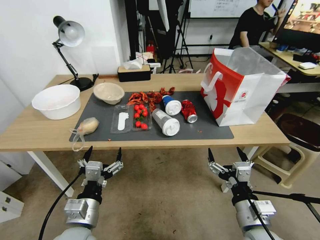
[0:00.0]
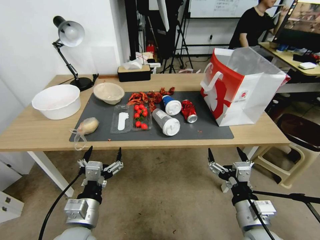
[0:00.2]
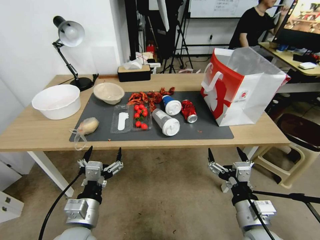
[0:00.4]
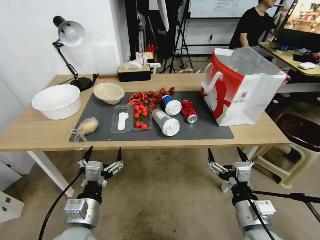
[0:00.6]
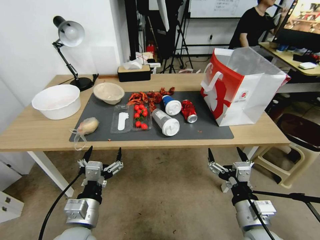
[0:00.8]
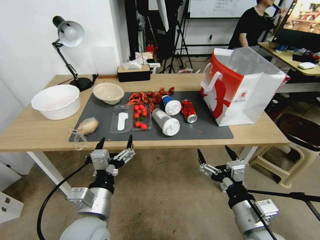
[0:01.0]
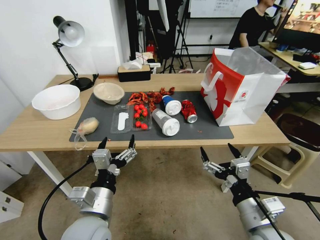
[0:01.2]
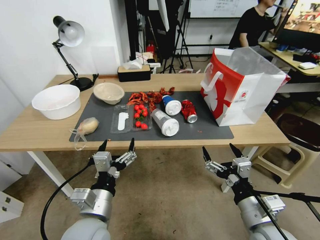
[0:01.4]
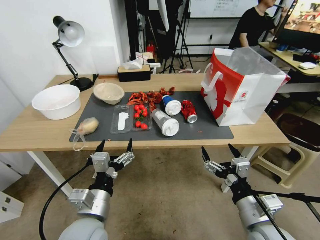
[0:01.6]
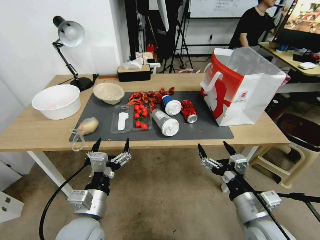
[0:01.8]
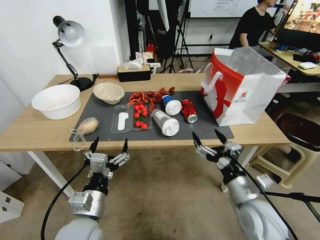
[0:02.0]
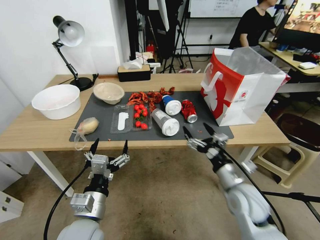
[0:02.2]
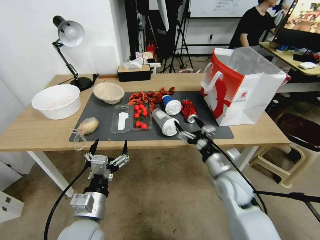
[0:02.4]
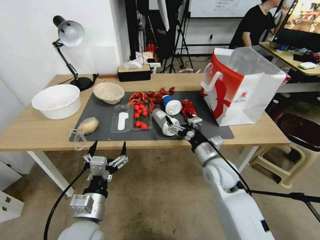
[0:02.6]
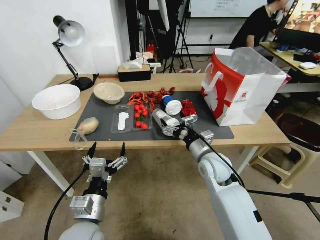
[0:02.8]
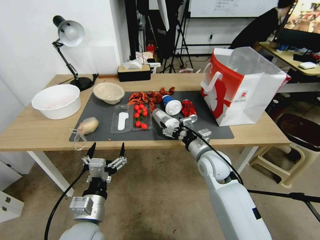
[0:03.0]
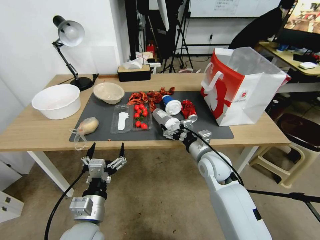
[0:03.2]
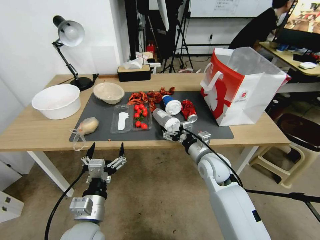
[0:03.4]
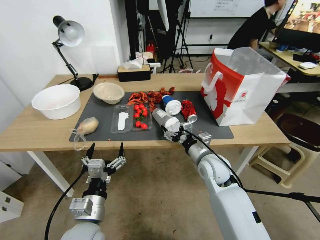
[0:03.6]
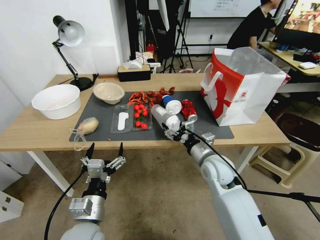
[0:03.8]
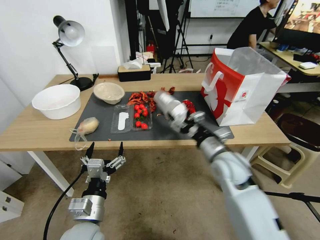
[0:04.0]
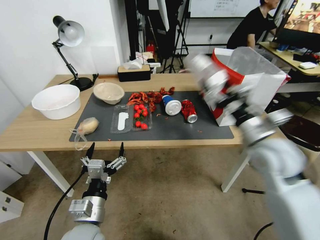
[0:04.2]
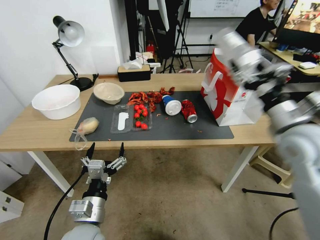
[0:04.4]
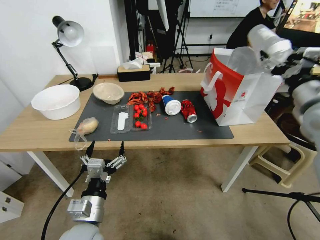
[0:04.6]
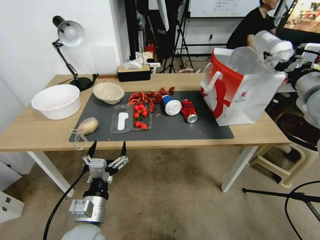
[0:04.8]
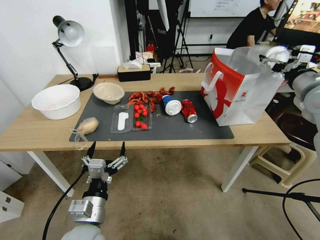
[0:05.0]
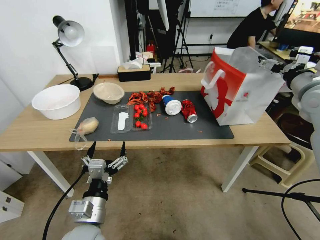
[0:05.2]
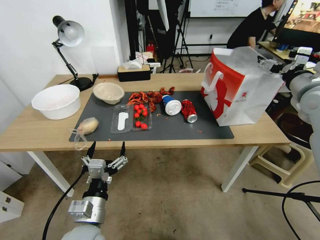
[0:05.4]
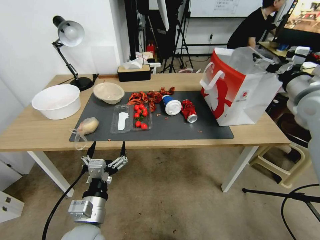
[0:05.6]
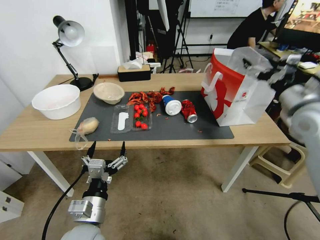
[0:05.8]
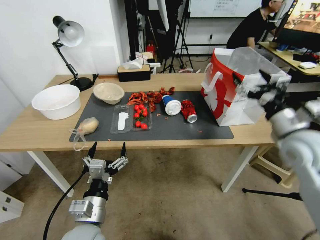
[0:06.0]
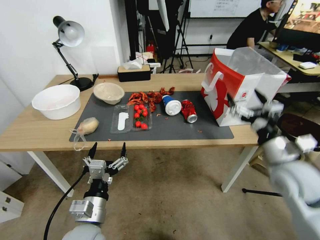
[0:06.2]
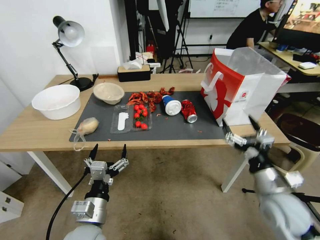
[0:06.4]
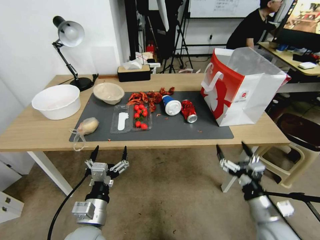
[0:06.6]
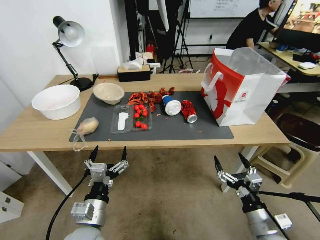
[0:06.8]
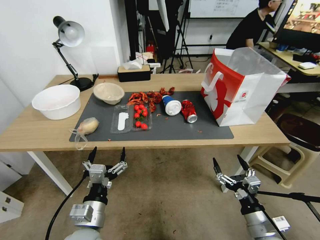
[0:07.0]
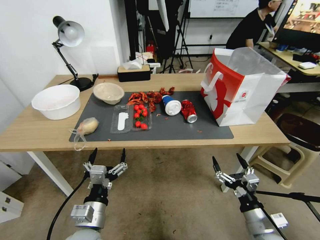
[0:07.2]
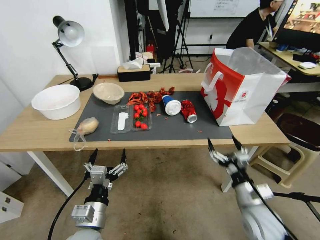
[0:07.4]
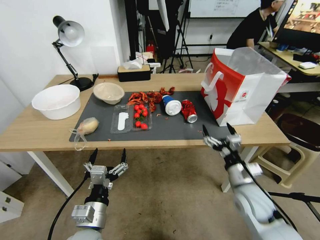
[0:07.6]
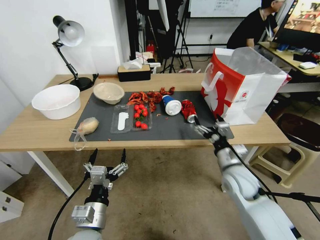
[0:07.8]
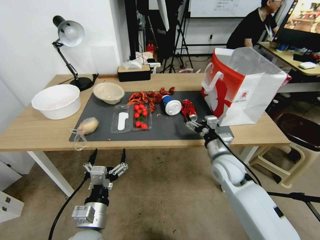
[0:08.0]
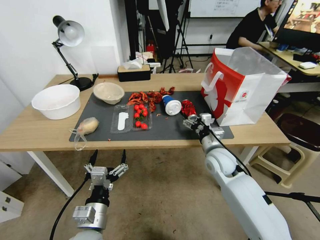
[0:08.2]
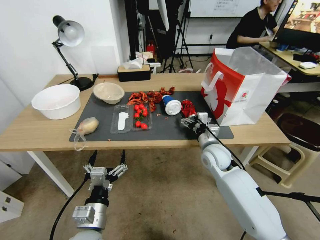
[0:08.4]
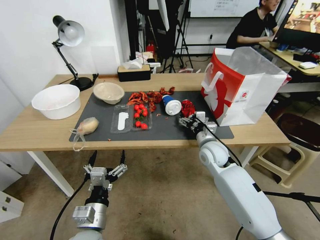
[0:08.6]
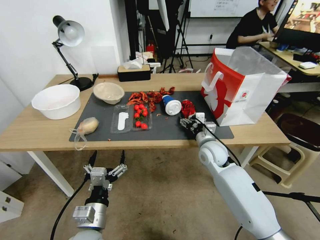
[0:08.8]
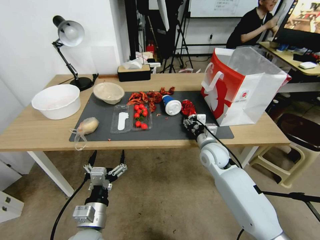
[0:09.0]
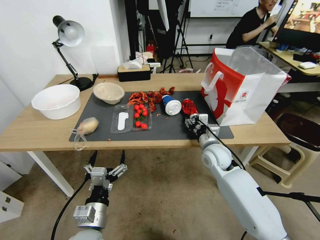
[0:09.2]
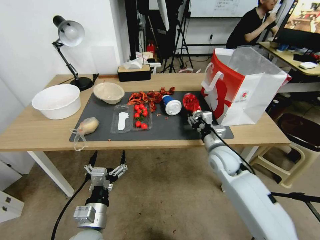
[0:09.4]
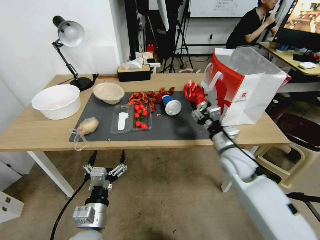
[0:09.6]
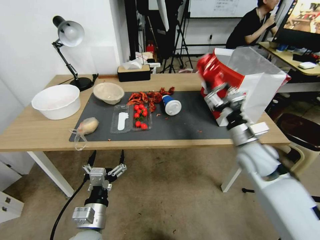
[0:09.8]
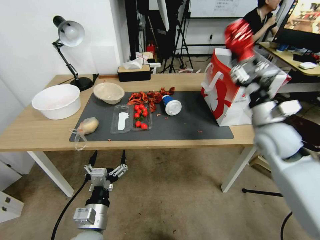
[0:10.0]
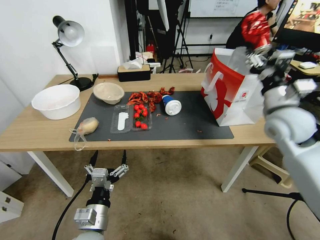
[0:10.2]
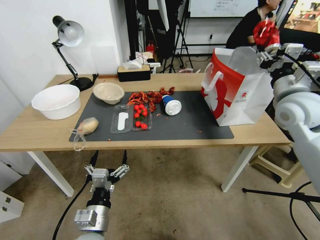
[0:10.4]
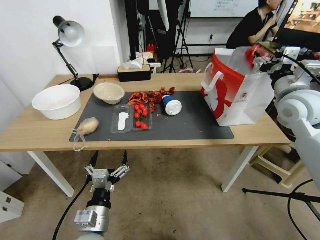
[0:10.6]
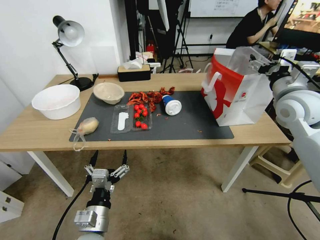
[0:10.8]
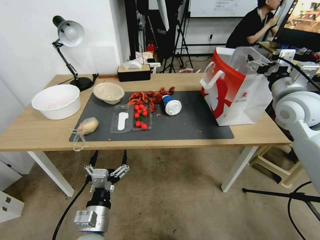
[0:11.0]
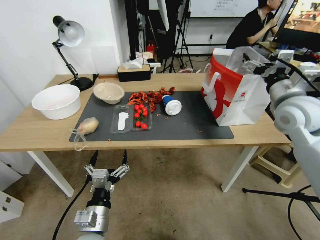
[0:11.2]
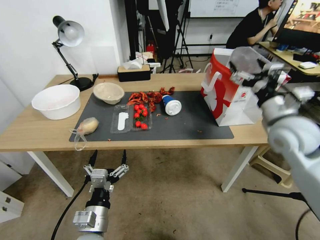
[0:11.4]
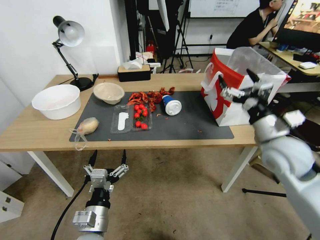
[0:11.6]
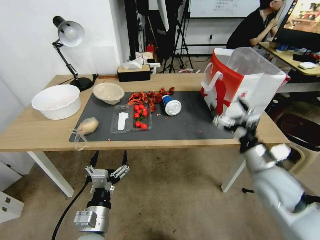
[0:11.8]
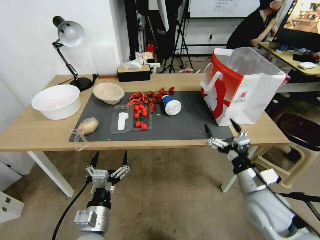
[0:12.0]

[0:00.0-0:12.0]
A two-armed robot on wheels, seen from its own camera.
0:01.6 to 0:03.0: The right gripper moves forward, some 20 cm.
0:03.0 to 0:04.4: The right gripper is displaced upward and to the right by about 25 cm, and closes.
0:04.4 to 0:06.0: The right gripper is displaced downward by roughly 5 cm, and opens up.
0:06.0 to 0:07.6: The right gripper goes some 25 cm downward and backward.
0:07.6 to 0:09.0: The right gripper moves forward and to the left, approximately 25 cm, and closes up.
0:09.0 to 0:10.4: The right gripper travels upward and to the right by approximately 25 cm.
0:10.4 to 0:12.0: The right gripper is displaced downward and backward by about 25 cm, and opens.

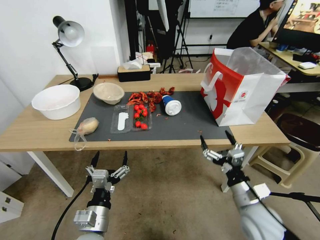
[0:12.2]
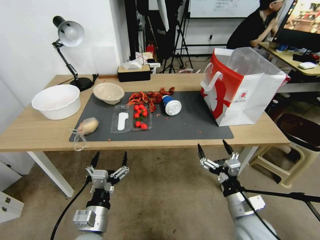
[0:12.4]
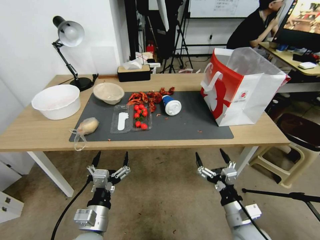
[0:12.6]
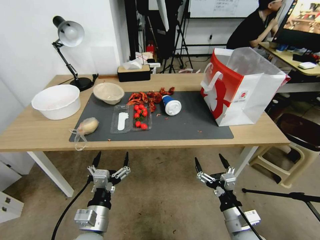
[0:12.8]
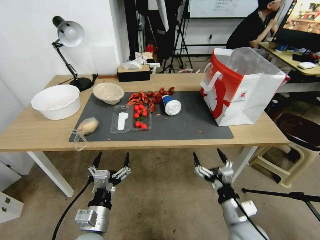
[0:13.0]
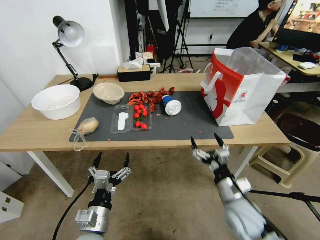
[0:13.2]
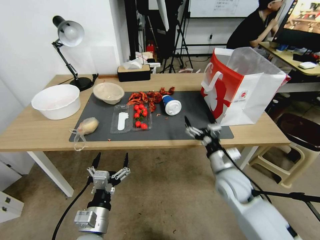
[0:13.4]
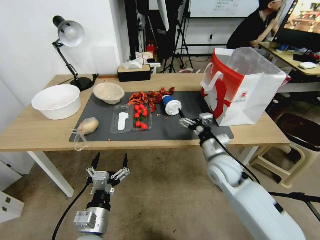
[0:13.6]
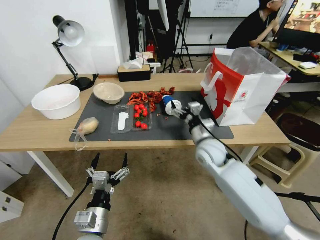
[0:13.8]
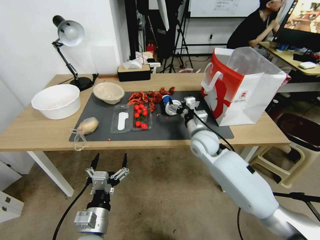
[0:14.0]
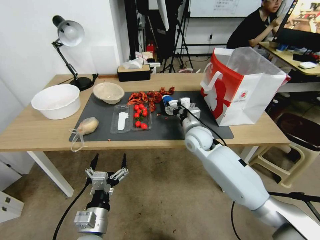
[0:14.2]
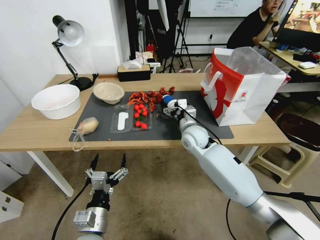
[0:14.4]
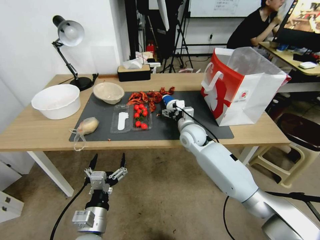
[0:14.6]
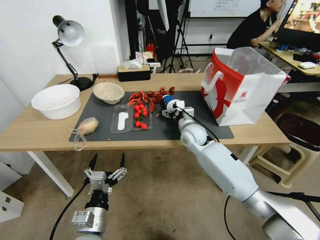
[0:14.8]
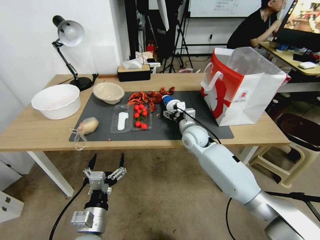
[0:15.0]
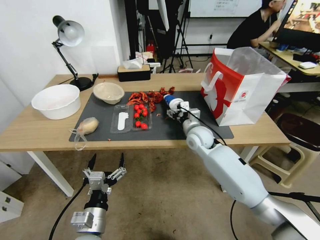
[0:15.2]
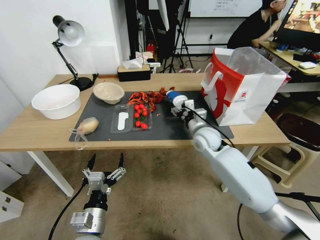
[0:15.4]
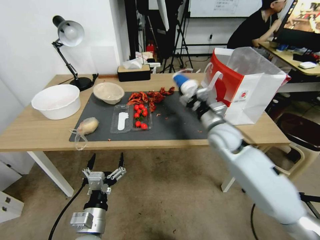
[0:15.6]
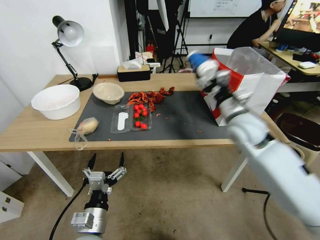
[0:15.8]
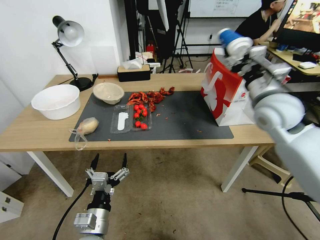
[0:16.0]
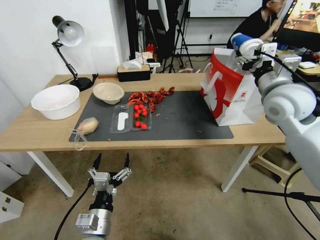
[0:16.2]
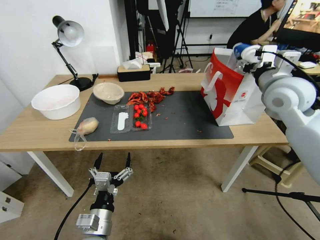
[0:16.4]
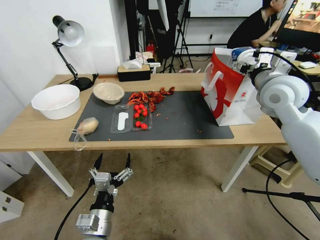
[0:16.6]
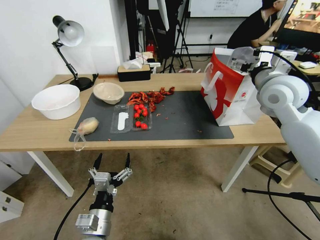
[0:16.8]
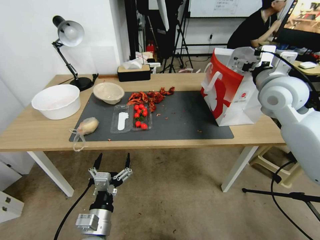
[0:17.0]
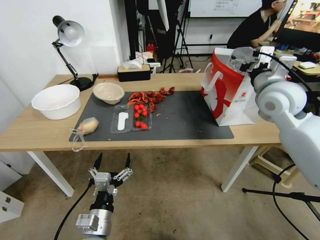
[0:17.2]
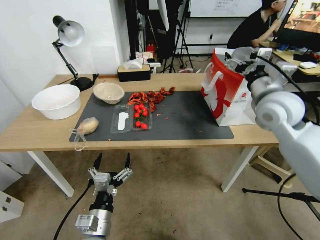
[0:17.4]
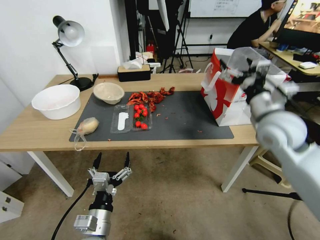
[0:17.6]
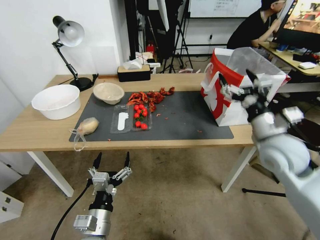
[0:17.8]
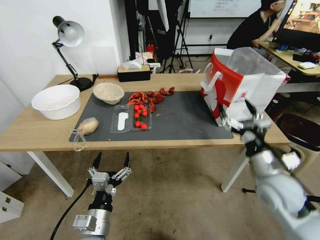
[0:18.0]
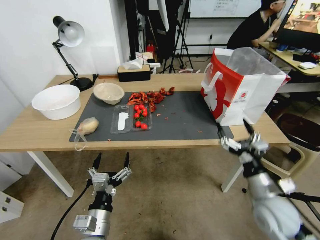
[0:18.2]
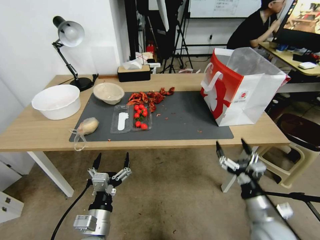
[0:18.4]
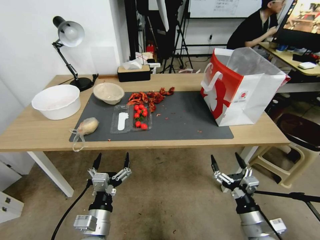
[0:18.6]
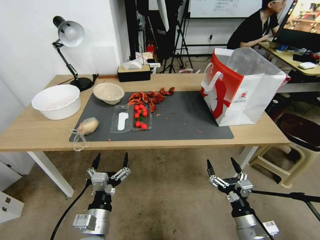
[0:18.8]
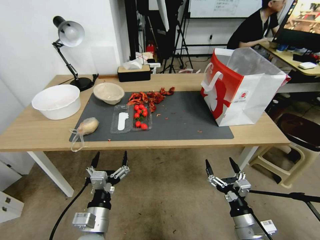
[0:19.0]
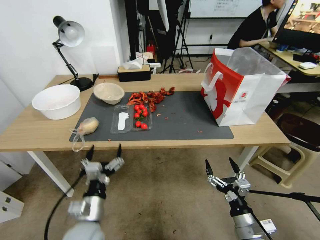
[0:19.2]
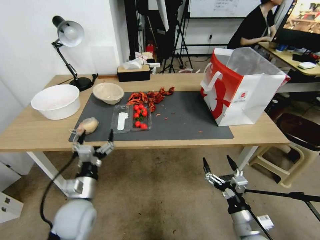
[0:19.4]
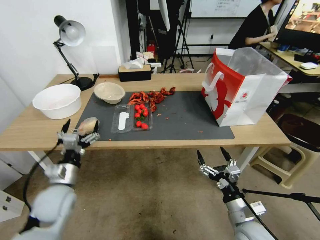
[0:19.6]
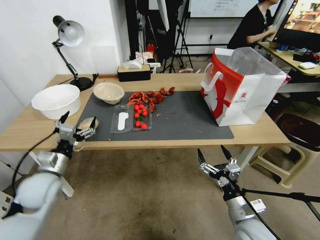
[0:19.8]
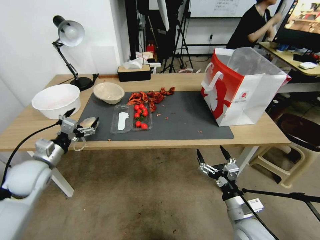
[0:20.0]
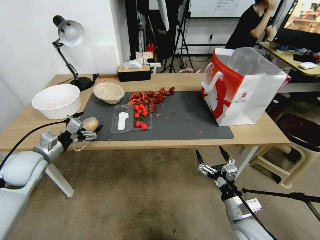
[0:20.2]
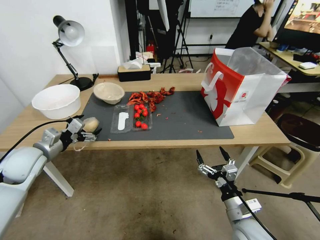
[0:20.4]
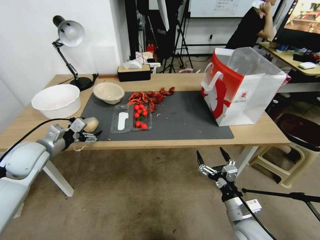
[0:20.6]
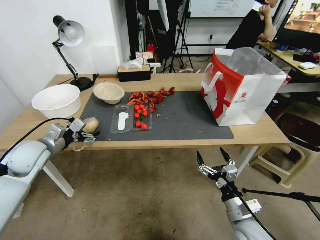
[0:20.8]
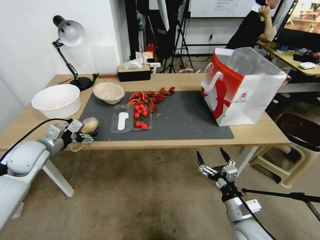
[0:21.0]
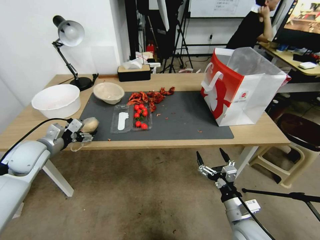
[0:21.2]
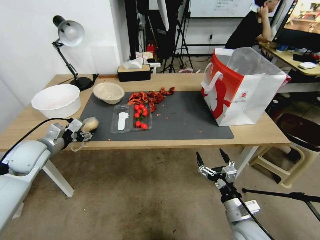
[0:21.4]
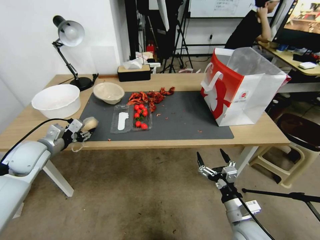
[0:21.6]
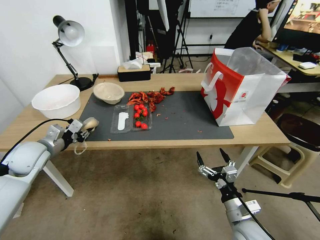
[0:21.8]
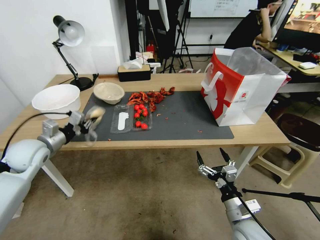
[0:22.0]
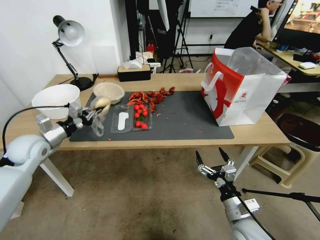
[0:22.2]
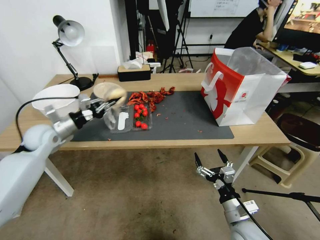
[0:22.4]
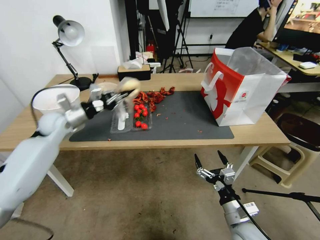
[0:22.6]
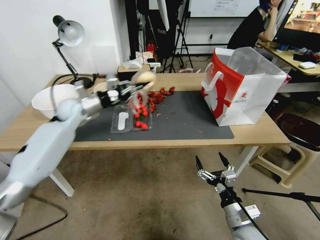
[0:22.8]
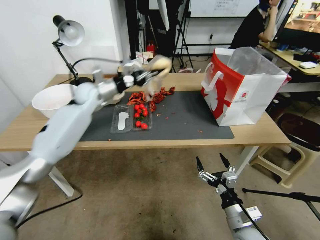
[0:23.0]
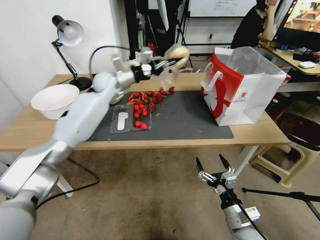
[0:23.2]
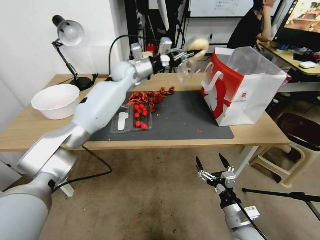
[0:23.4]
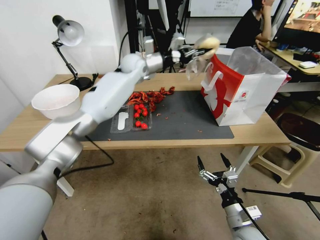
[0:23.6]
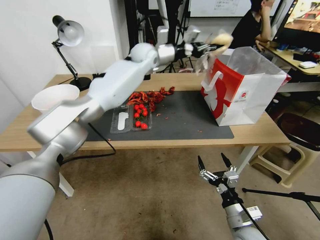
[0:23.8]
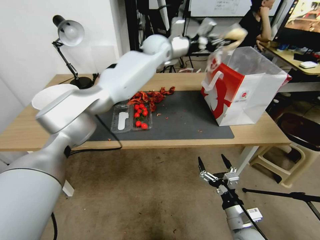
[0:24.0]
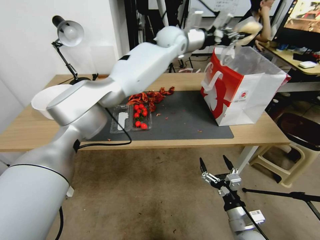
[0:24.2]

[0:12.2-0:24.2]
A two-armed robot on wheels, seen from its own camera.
0:12.2 to 0:13.8: The right gripper shifts approximately 20 cm forward and to the left.
0:13.8 to 0:15.2: The right gripper travels forward by roughly 5 cm, and closes.
0:15.2 to 0:16.6: The right gripper travels upward and to the right by roughly 30 cm.
0:16.6 to 0:18.2: The right gripper goes approximately 35 cm downward and backward, and opens its fingers.
0:18.2 to 0:19.8: The left gripper goes roughly 20 cm to the left and forward, while the right gripper goes about 5 cm downward.
0:19.8 to 0:21.2: The left gripper is displaced forward, upward and to the left by about 10 cm.
0:21.2 to 0:22.6: The left gripper travels forward by about 10 cm, and closes.
0:22.6 to 0:24.2: The left gripper is displaced to the right, forward and upward by approximately 40 cm.
